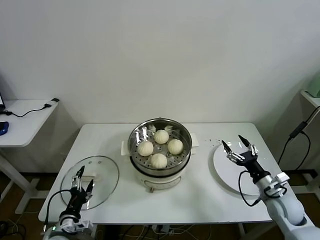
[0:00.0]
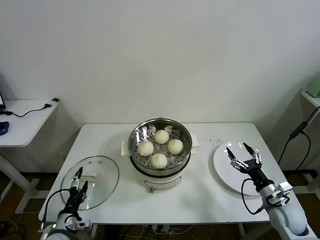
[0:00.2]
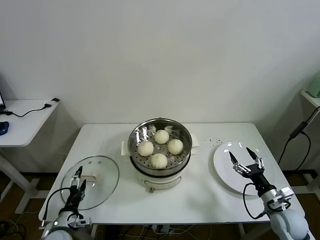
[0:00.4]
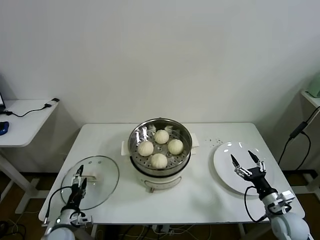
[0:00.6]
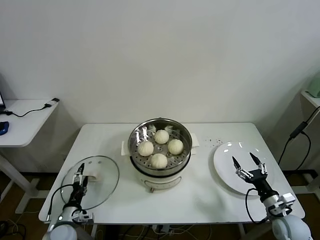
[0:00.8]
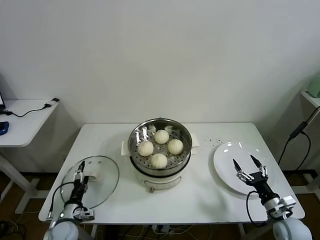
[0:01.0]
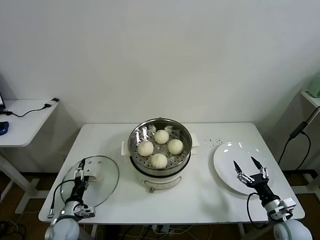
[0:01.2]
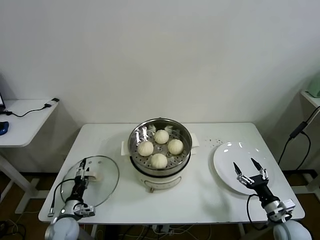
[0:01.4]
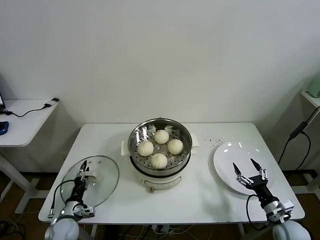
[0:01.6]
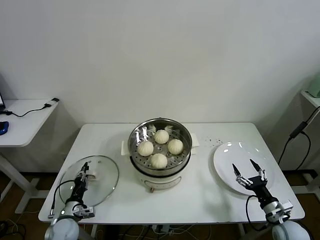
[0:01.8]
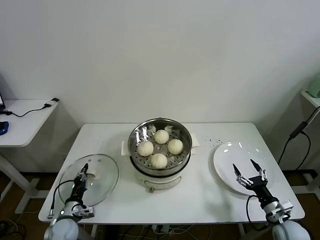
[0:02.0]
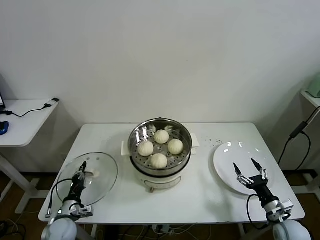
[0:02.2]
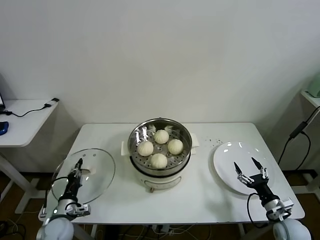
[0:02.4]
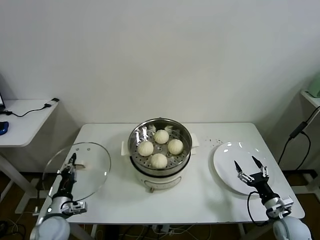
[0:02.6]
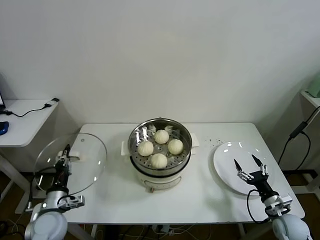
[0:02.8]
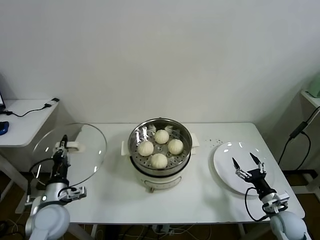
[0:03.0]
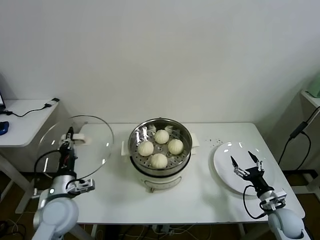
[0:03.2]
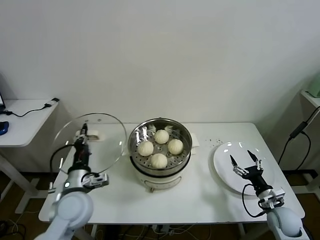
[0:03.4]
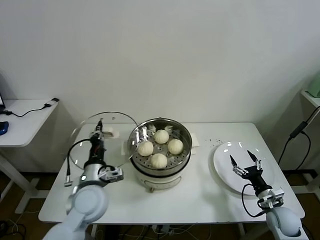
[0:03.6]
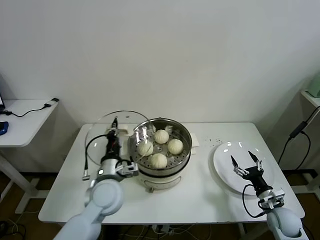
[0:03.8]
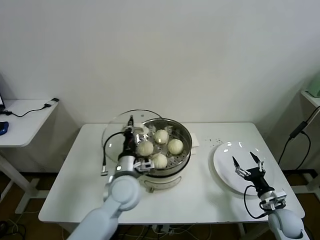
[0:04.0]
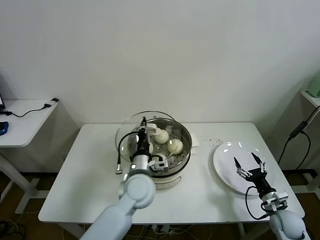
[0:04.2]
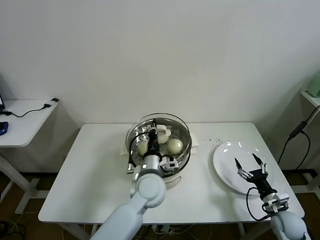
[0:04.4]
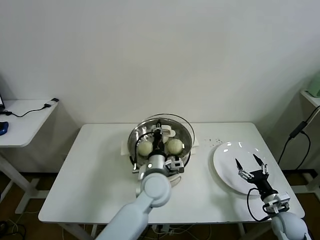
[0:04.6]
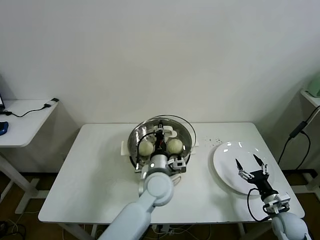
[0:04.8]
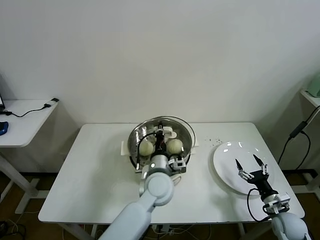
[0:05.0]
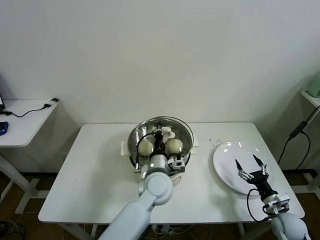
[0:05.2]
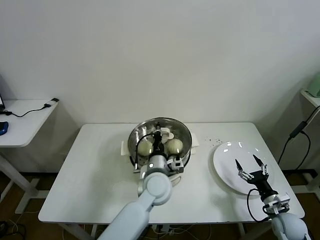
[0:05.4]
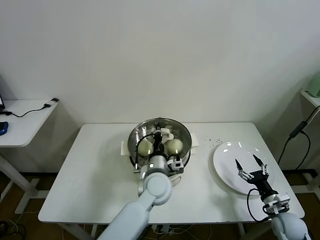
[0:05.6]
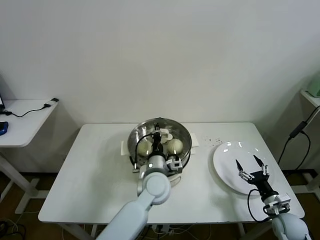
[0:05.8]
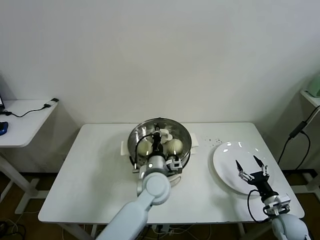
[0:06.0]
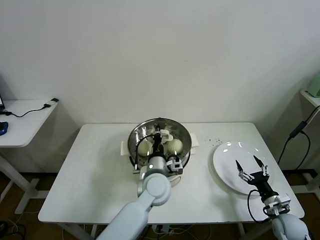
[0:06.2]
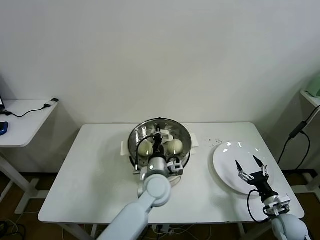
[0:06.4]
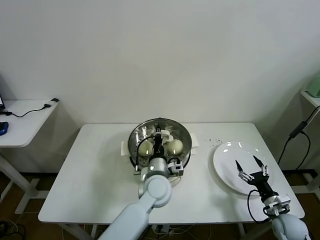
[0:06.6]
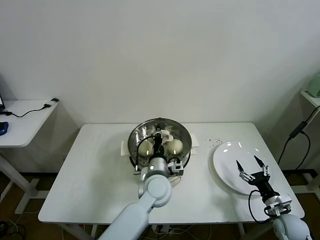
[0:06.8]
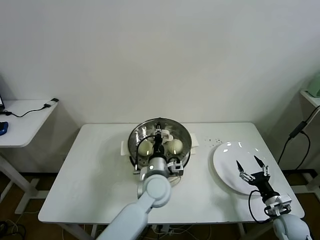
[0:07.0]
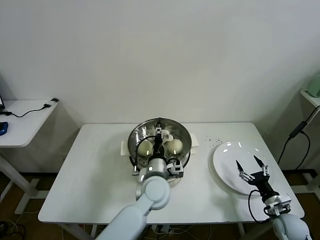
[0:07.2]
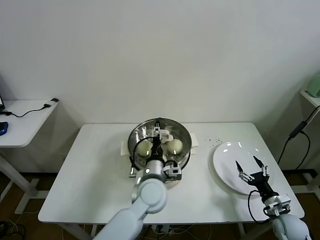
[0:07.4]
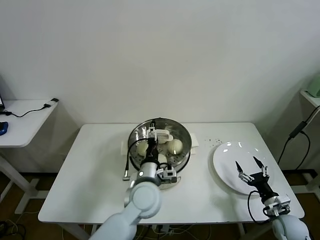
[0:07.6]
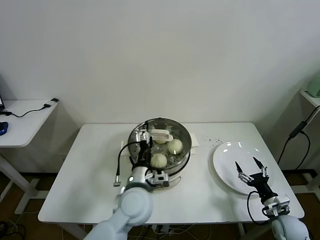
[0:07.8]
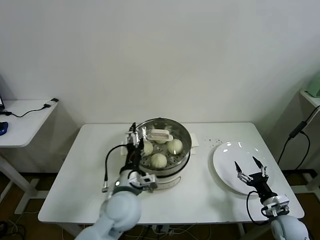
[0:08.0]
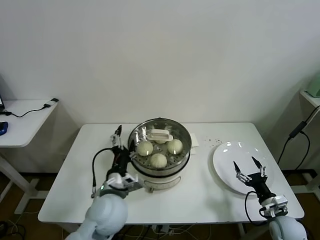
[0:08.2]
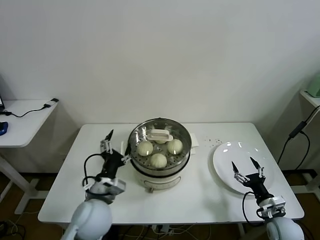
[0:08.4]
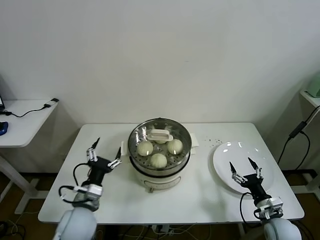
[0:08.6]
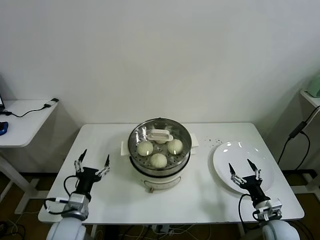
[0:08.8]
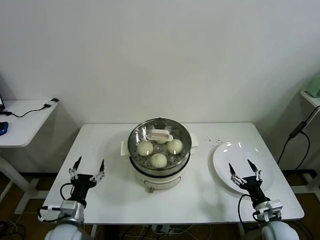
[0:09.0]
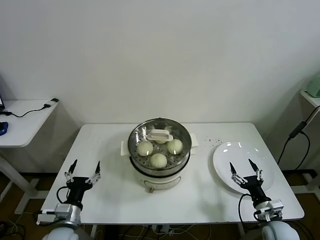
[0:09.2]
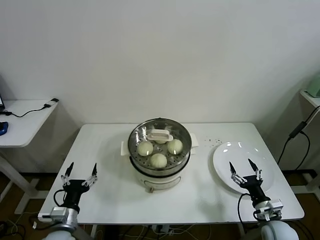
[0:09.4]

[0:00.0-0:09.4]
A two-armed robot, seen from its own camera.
Task of the whole recording: take steamed baozi put them in steamer then cover it.
Step, 0:02.2 to 0:06.8: Place the pot lid on the steamer with left gripper.
0:00.0 to 0:01.6: The left gripper moves downward and forward, some 10 cm, and closes up. Meanwhile the right gripper moves downward and backward, some 10 cm.
0:01.6 to 0:03.2: The left gripper travels upward by roughly 20 cm, and closes.
0:03.2 to 0:04.8: The left gripper is displaced to the right by some 30 cm.
0:04.8 to 0:06.2: There are only small adjustments of the grippers.
0:06.2 to 0:07.8: The left gripper shifts some 5 cm backward, and opens its fingers.
0:07.8 to 0:09.4: The left gripper heads to the left and downward, covering about 25 cm; the right gripper heads to the left, covering approximately 5 cm.

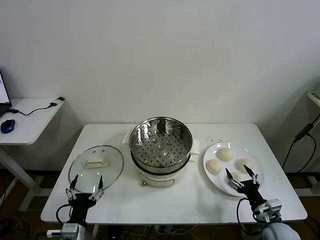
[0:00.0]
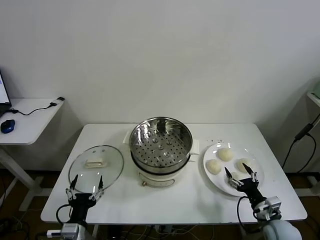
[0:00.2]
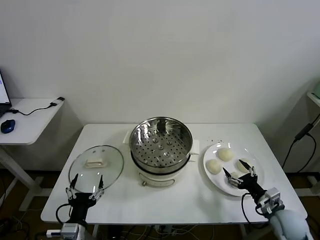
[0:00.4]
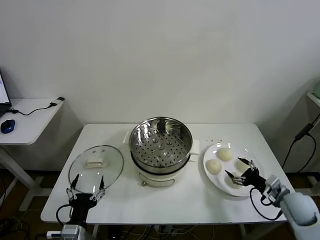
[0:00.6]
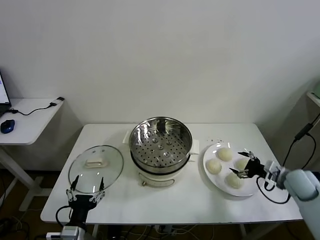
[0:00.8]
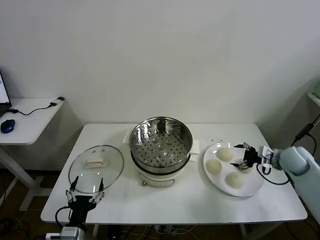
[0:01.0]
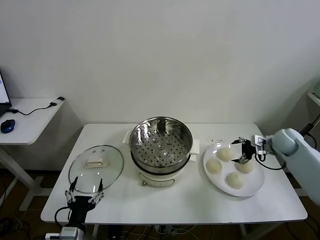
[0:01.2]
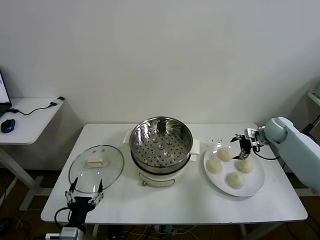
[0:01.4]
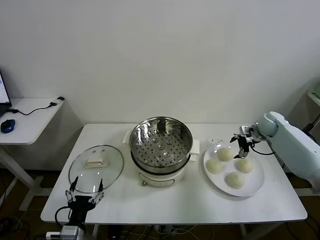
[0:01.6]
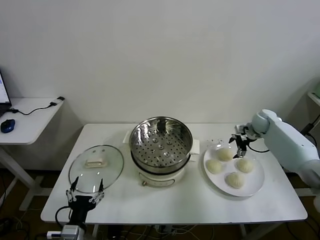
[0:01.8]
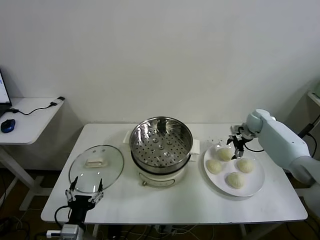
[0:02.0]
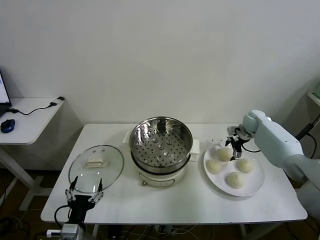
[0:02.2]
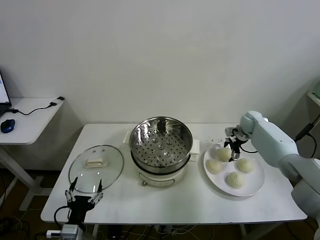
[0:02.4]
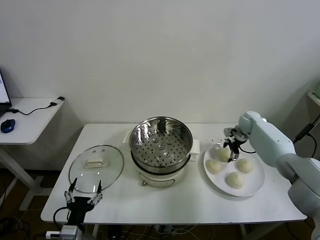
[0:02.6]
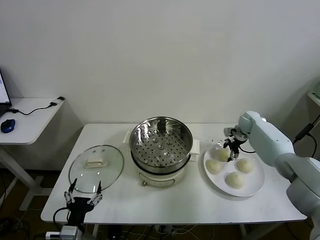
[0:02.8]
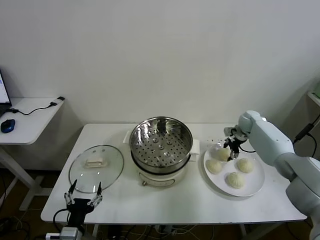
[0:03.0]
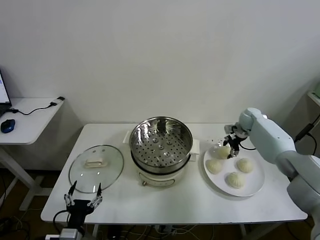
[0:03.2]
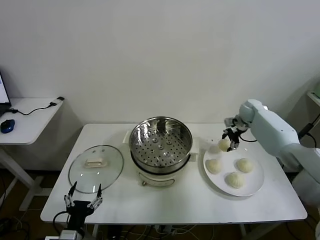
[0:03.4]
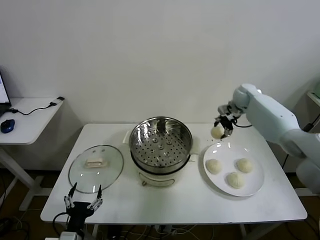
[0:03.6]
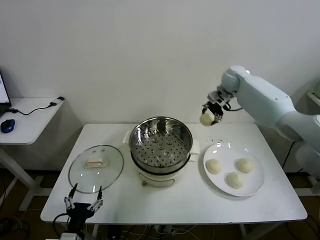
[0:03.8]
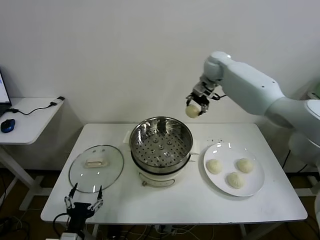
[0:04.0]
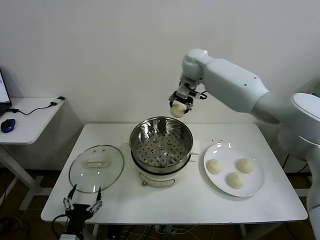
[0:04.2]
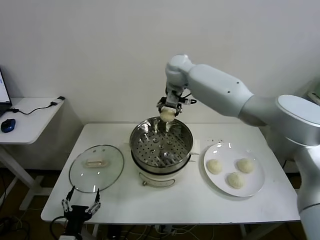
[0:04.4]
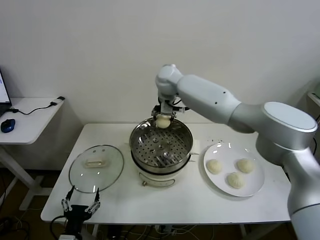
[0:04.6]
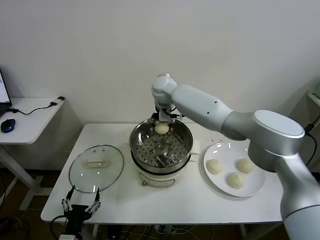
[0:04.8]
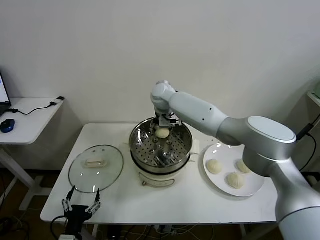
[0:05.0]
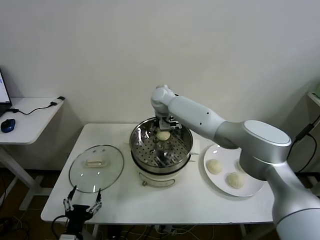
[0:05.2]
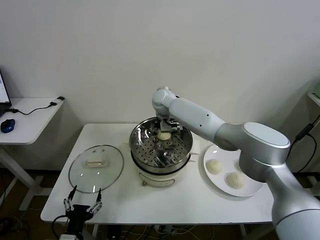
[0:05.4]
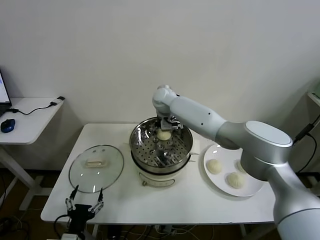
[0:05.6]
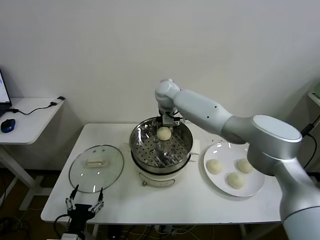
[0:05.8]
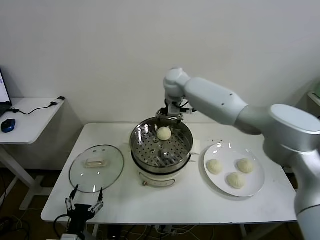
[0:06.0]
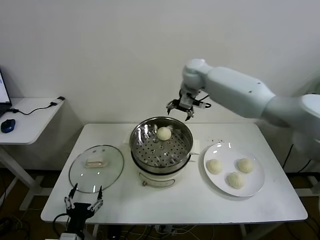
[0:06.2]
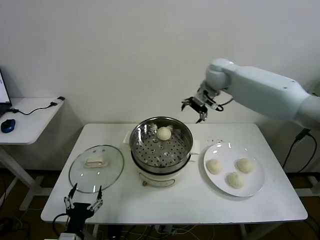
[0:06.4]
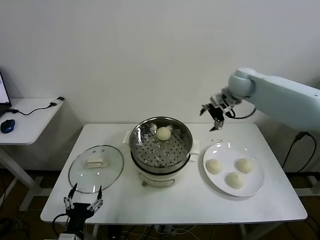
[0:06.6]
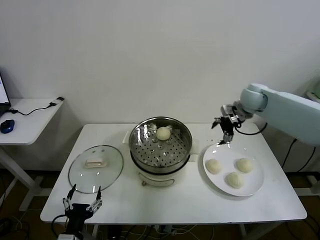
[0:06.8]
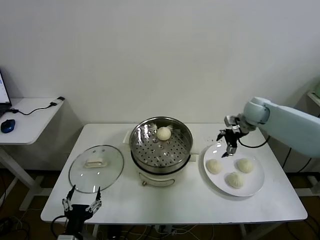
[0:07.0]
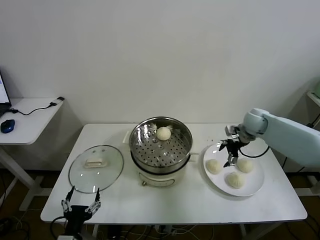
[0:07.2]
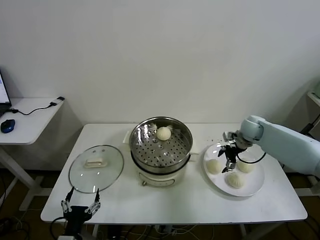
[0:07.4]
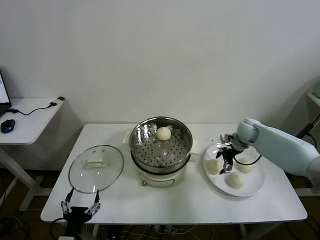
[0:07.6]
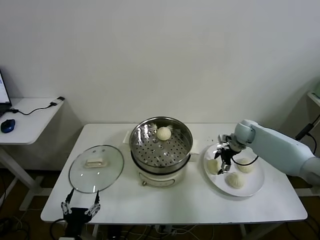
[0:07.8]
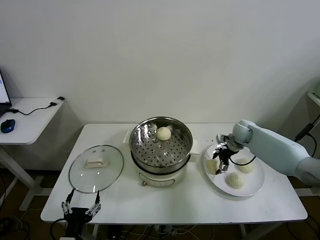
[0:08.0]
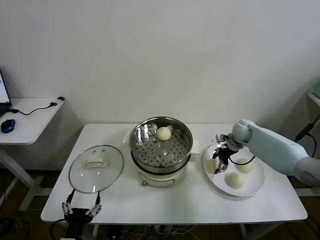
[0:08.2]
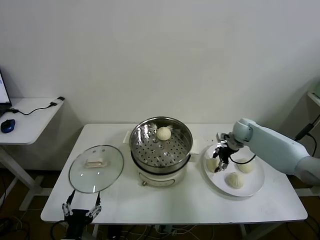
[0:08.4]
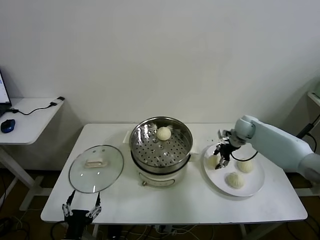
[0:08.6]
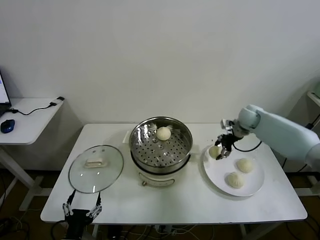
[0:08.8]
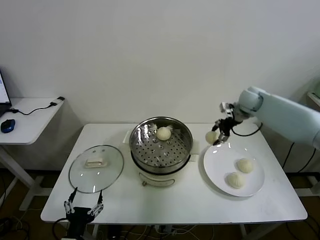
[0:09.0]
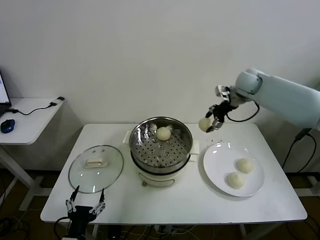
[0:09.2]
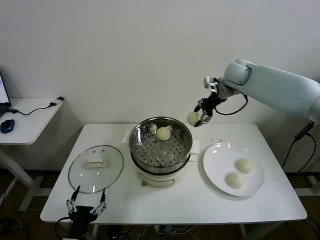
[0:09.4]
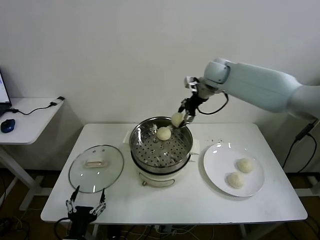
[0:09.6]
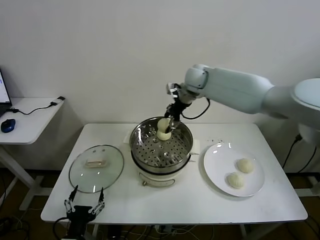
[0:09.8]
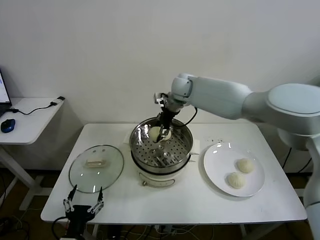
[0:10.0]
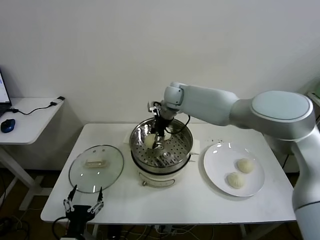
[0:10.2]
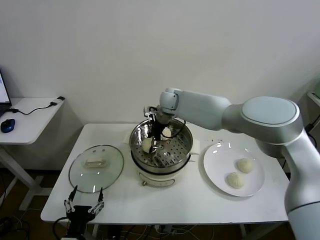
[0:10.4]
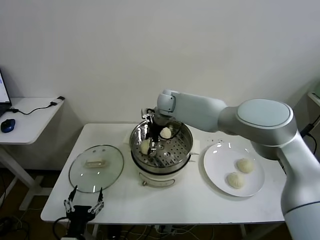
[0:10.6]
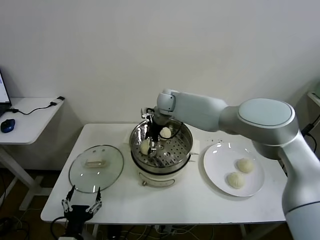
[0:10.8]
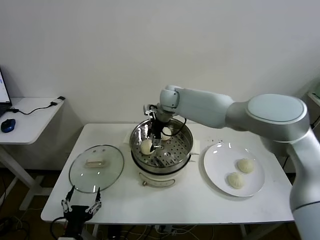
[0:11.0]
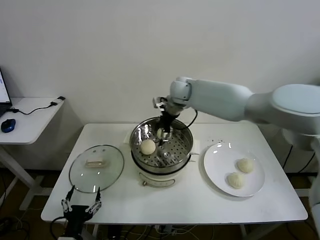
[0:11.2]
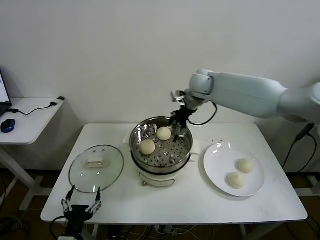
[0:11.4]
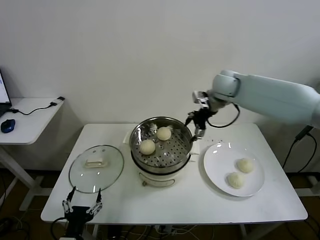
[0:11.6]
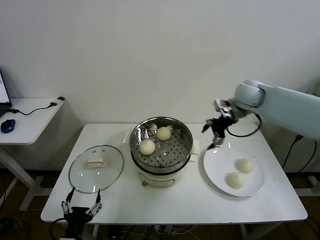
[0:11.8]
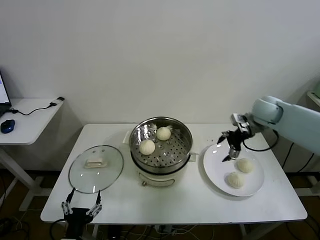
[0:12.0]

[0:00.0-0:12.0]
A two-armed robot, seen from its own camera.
Task of the whole recording: take steamed baozi put them in steamer then cover it.
Step, 0:00.0 to 0:03.0: Grasp the baozi in the plate with right gripper.
Step, 0:03.2 to 0:03.8: Place the baozi on the steamer with right gripper.
Step, 0:04.0 to 0:08.4: Grasp the baozi in the plate with right gripper.
Step, 0:08.6 to 0:10.8: Place the baozi on the steamer with right gripper.
0:01.6 to 0:03.0: The right gripper shifts by about 5 cm, and closes its fingers.
0:03.0 to 0:04.4: The right gripper goes roughly 40 cm to the left and upward.
0:04.4 to 0:06.0: The right gripper goes downward and returns, about 10 cm each way, and opens up.
0:06.0 to 0:07.6: The right gripper heads to the right and downward, covering approximately 35 cm.
0:07.6 to 0:09.0: The right gripper moves upward, some 15 cm, and closes.
0:09.0 to 0:10.4: The right gripper shifts some 30 cm to the left.
0:10.4 to 0:12.0: The right gripper travels to the right by approximately 35 cm, and opens up.
